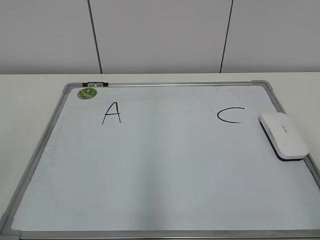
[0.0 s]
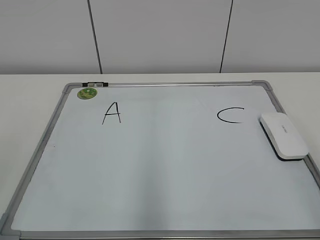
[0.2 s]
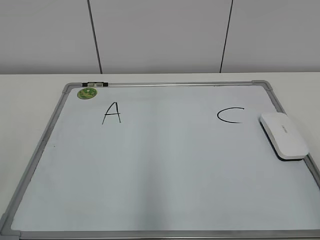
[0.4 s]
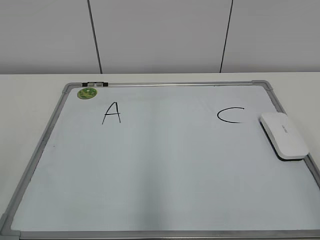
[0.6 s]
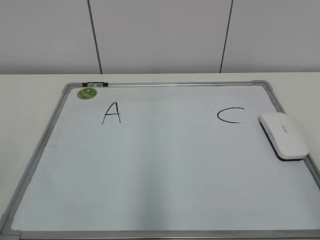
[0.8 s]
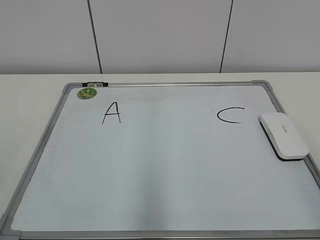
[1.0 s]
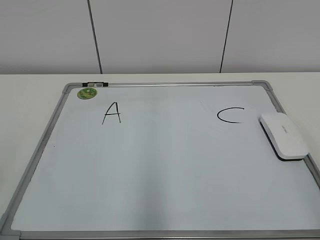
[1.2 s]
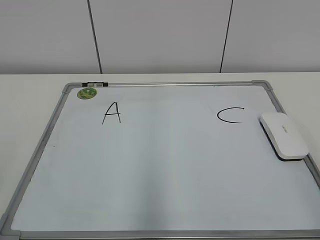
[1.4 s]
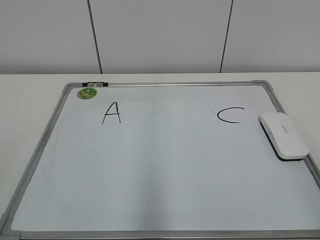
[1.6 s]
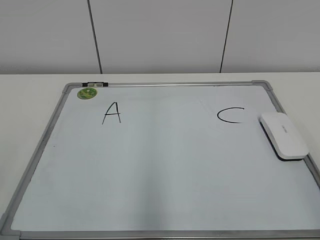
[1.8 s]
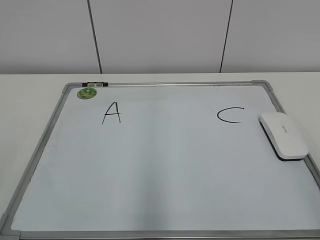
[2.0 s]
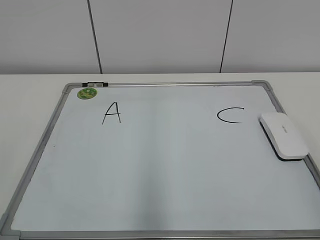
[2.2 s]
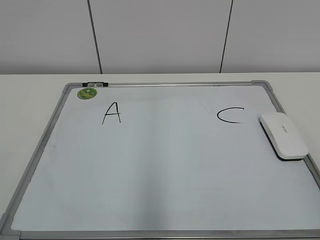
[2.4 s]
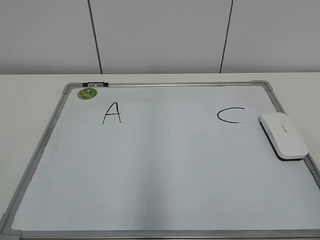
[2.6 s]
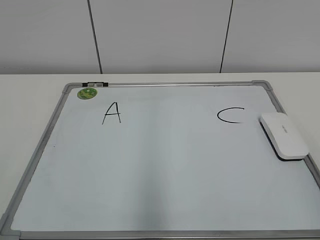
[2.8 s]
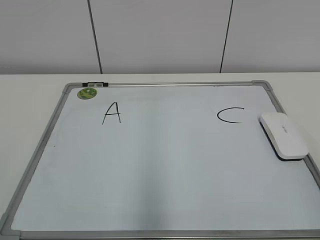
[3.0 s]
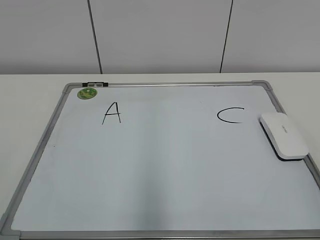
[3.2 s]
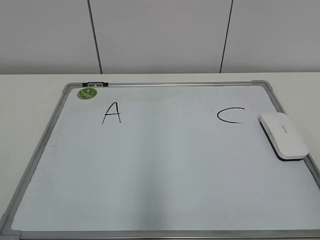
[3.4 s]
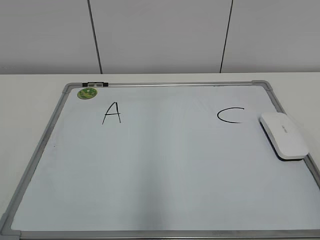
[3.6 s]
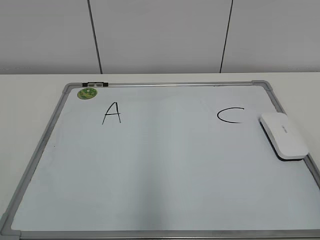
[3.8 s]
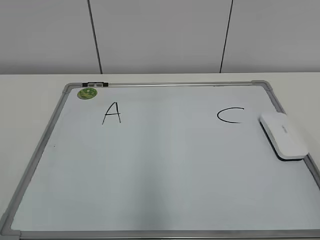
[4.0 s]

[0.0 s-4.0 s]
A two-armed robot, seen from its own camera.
Task of the whole recording: pick up the eraser on the blackboard and erase the letter "B".
2.6 to 4.0 s: Both grippers stay put.

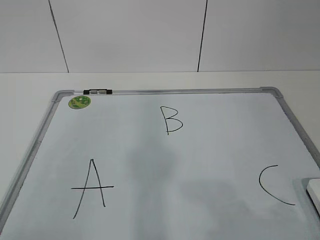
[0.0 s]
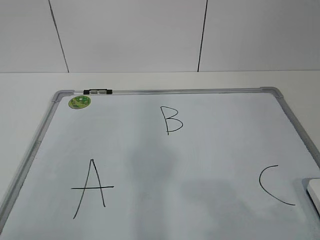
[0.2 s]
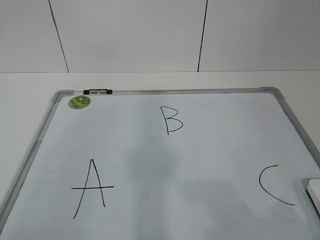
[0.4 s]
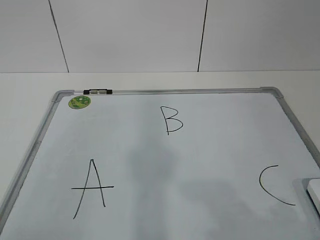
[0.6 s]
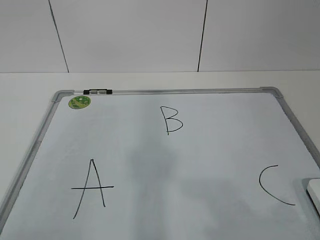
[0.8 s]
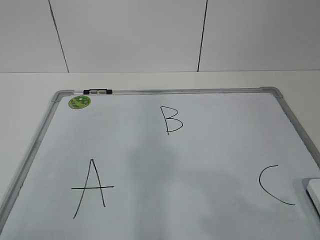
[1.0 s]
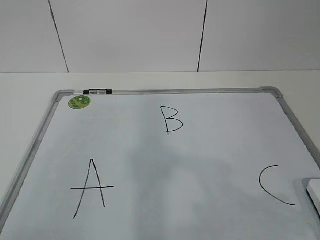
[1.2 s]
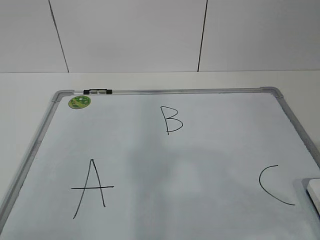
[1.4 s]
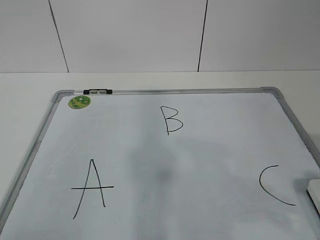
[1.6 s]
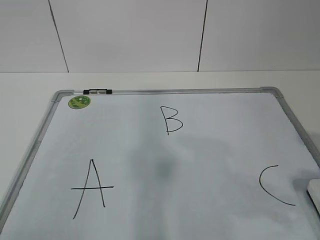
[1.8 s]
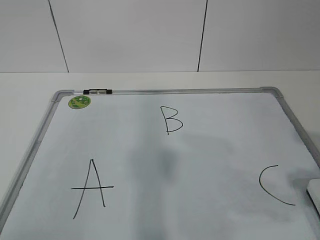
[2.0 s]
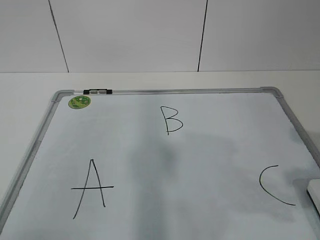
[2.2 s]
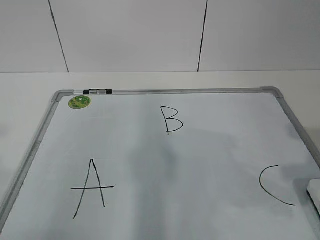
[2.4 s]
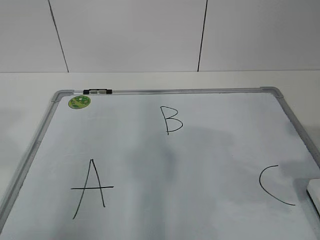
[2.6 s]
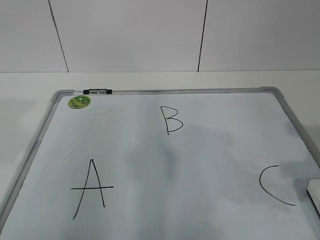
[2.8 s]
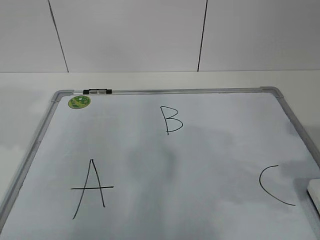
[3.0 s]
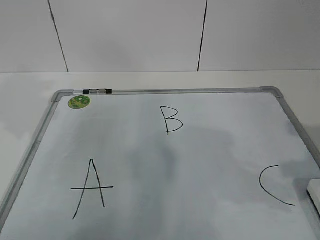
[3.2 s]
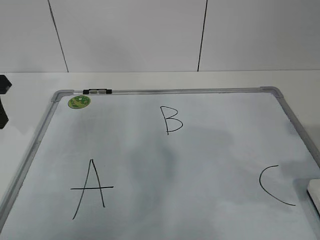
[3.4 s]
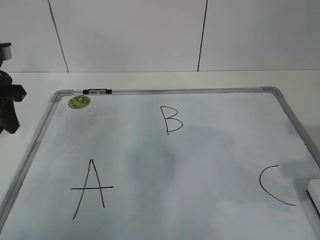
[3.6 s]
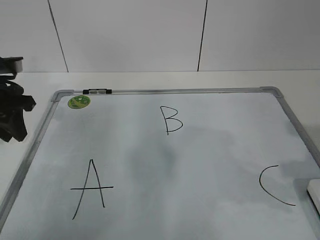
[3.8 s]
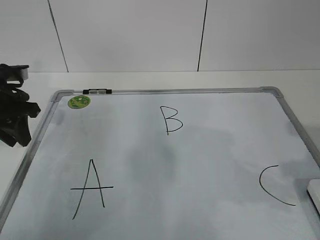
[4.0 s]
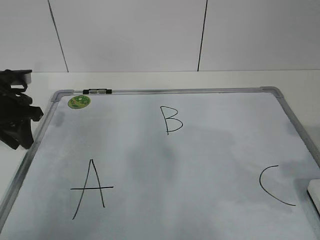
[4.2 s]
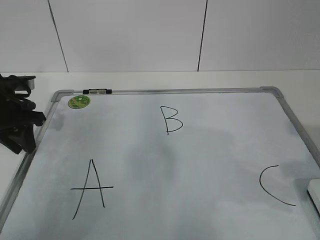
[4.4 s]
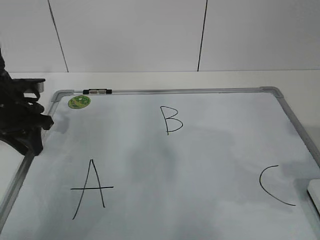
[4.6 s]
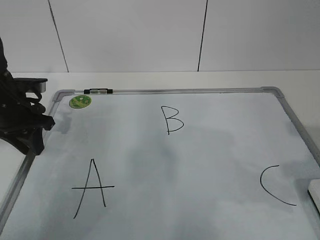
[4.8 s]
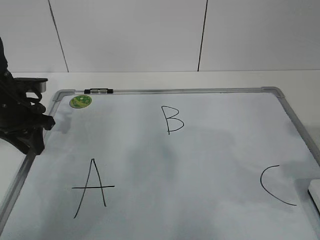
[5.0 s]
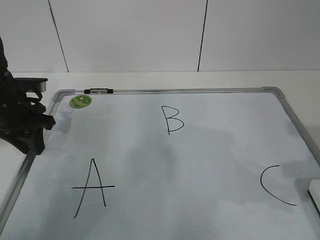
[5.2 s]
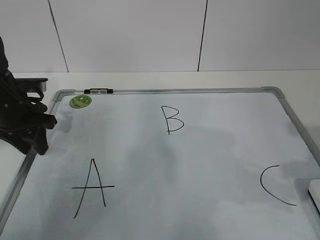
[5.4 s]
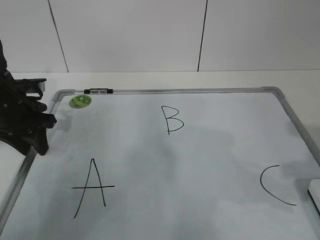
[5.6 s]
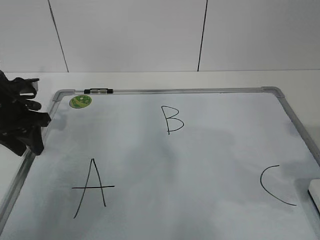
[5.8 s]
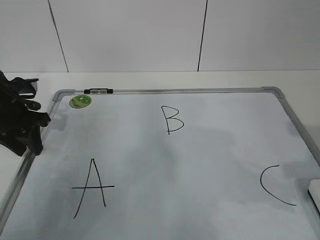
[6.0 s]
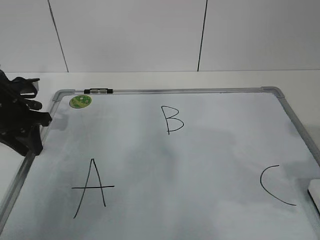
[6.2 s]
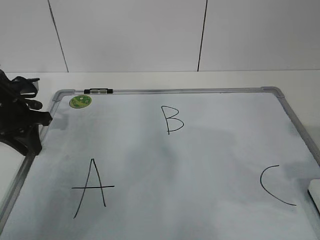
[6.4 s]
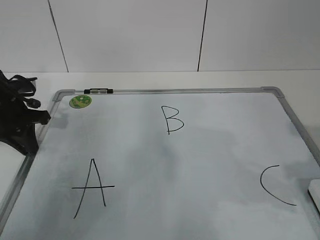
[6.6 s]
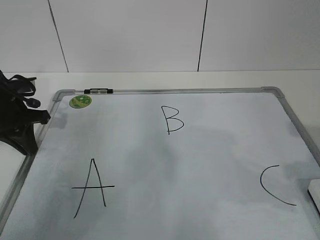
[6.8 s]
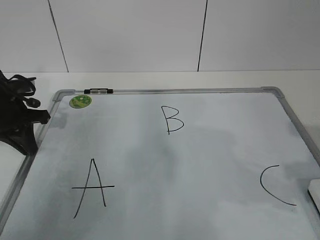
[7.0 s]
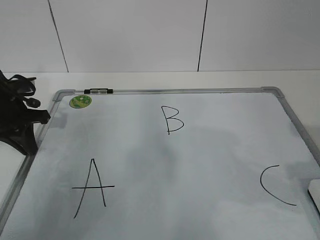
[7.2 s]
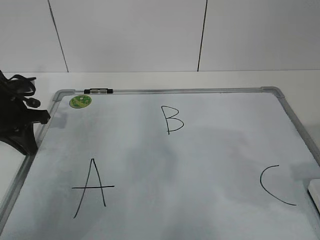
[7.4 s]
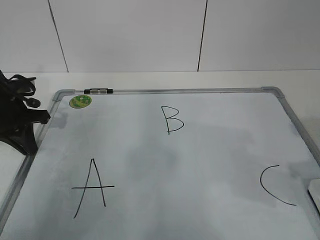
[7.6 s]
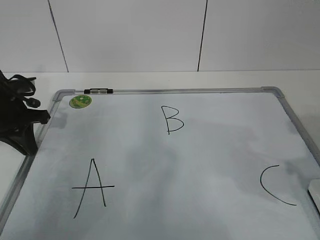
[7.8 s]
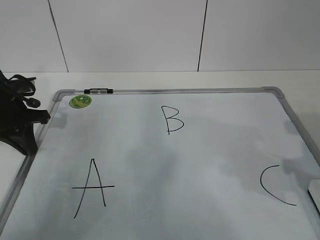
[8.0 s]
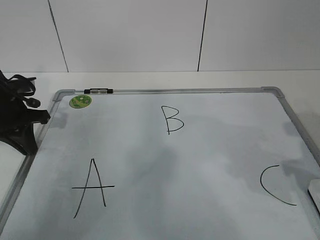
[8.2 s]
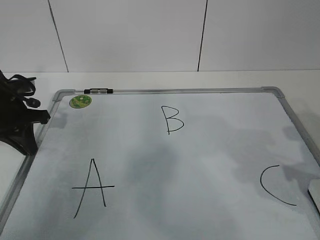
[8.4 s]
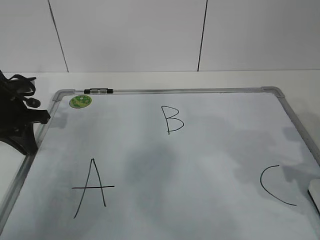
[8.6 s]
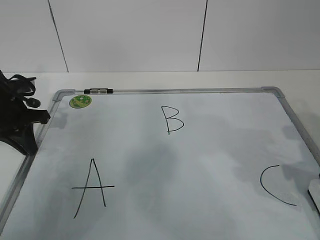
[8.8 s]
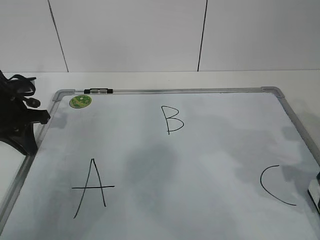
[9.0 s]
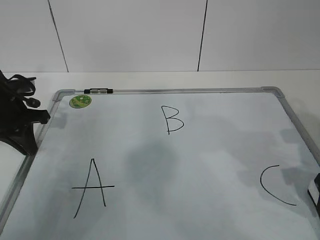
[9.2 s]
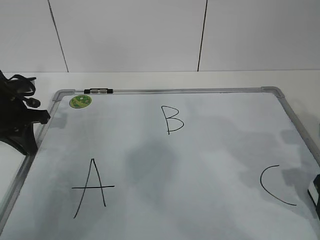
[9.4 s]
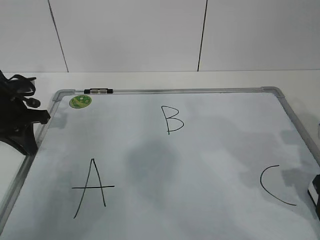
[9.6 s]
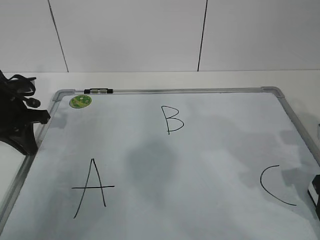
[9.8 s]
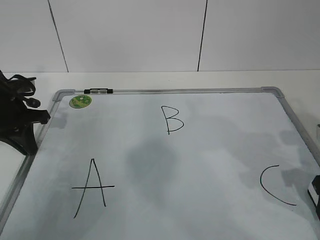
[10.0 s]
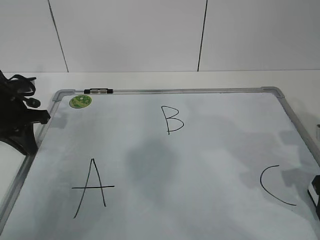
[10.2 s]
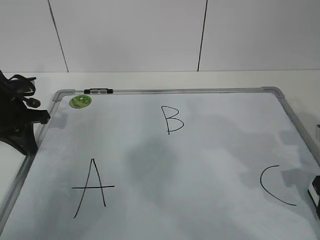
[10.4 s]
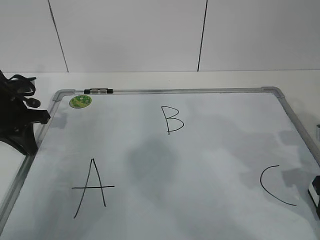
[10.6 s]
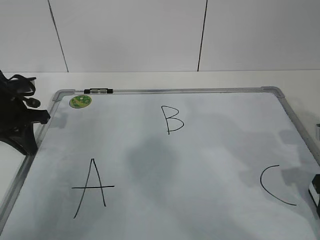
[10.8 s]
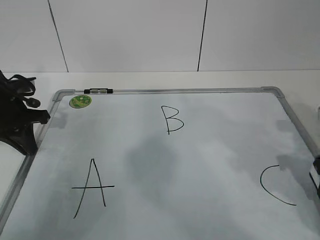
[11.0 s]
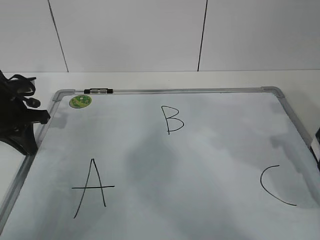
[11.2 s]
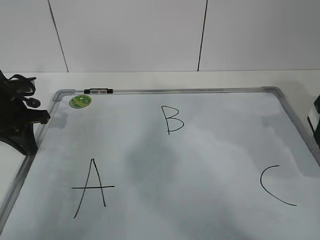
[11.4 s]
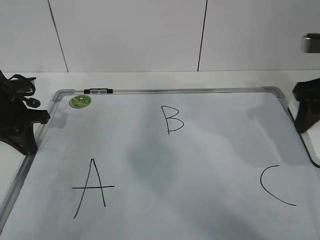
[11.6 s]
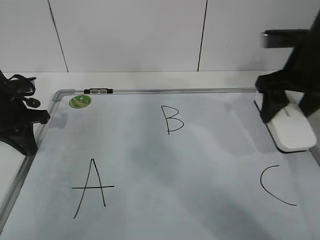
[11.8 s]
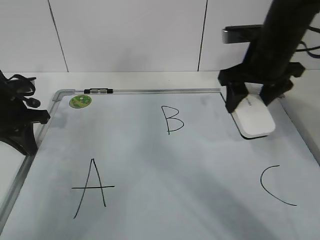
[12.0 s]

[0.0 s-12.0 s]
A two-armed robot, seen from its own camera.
Task of the whole recording: pick up the eraser on the blackboard and erase the letter "B".
Step, 0.0 to 3.8 s: Hold the drawing board steady with your left hand.
Step, 4.0 to 8.8 s: Grab the eraser with your right hand.
1.6 to 3.0 s: The right gripper is displaced forward by approximately 5 cm; the left gripper goes about 20 cm forward.
3.0 to 4.4 s: The left gripper travels forward and downward by some 20 cm.
4.4 to 6.0 s: The grippers stay close to where they were, moving slightly.
6.0 to 7.6 s: The left gripper closes its fingers.
10.4 to 12.0 s: The right gripper goes some 20 cm forward, to the left and upward.

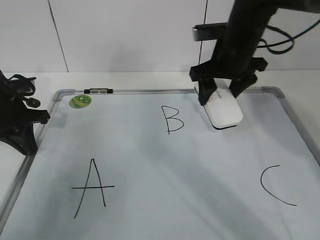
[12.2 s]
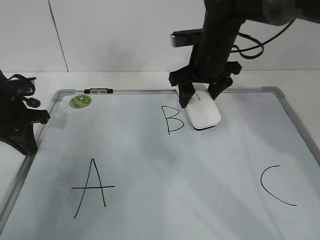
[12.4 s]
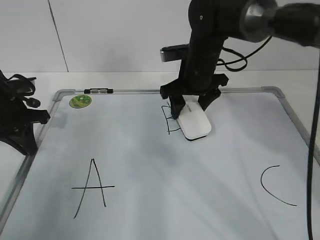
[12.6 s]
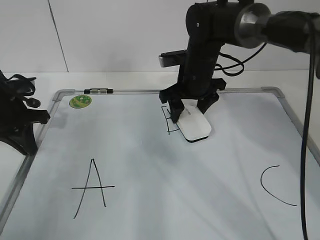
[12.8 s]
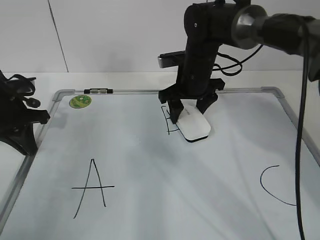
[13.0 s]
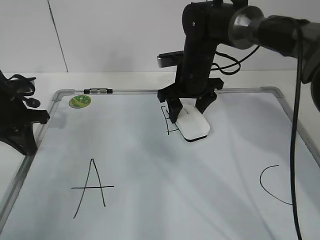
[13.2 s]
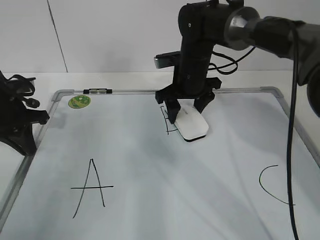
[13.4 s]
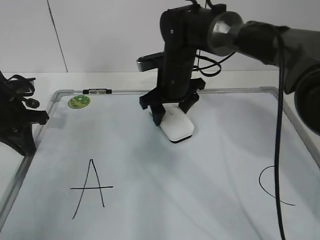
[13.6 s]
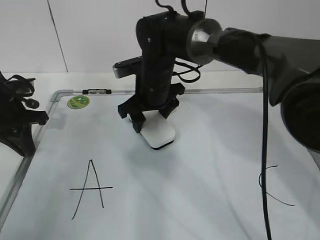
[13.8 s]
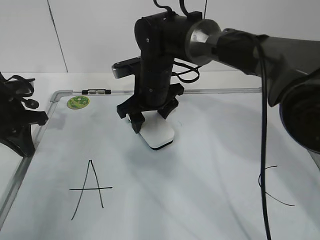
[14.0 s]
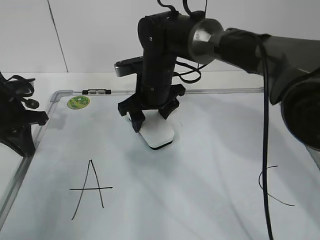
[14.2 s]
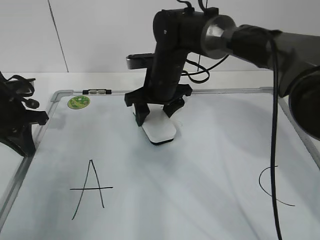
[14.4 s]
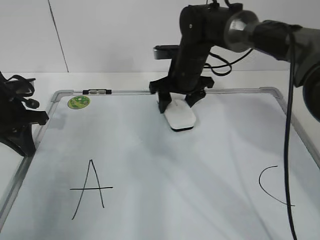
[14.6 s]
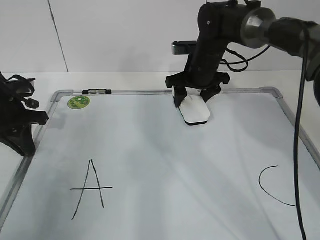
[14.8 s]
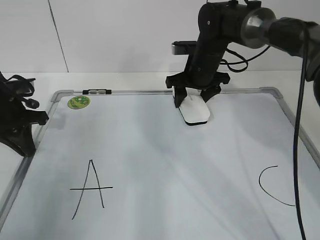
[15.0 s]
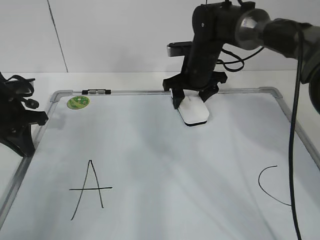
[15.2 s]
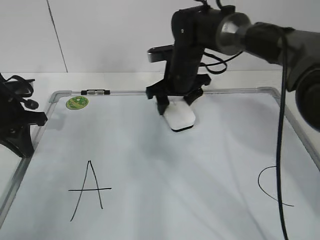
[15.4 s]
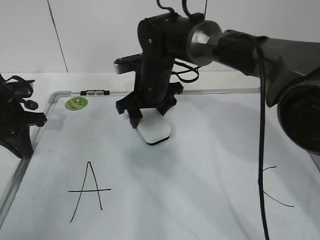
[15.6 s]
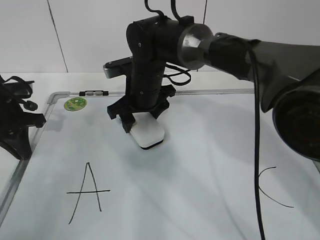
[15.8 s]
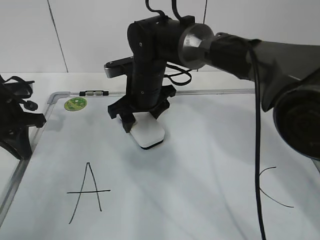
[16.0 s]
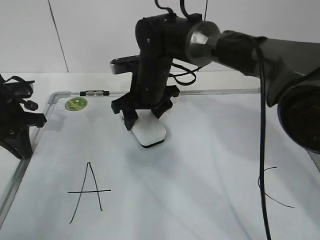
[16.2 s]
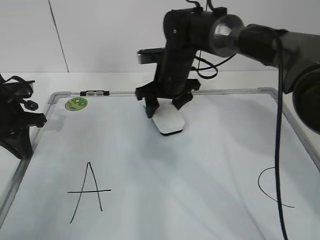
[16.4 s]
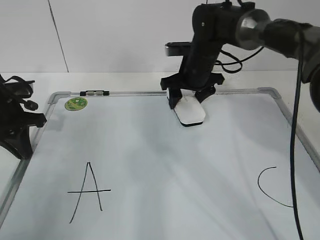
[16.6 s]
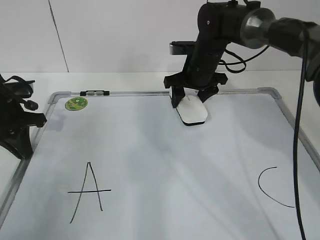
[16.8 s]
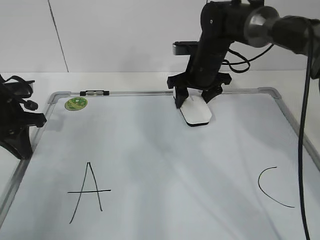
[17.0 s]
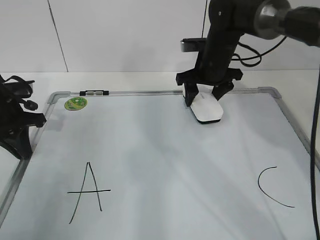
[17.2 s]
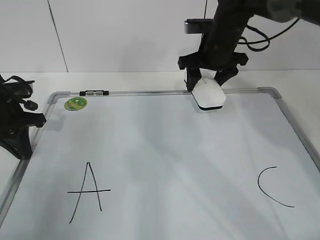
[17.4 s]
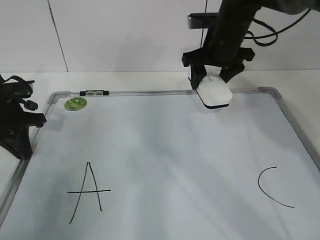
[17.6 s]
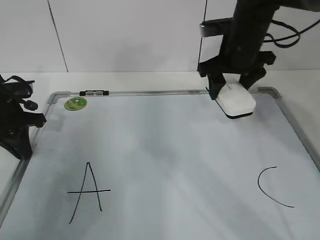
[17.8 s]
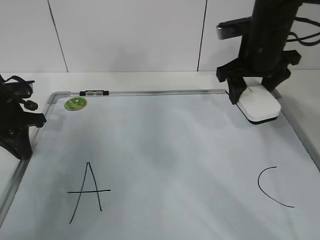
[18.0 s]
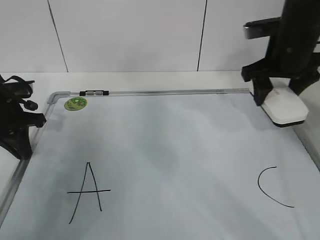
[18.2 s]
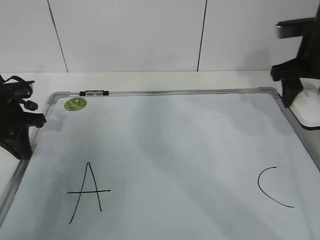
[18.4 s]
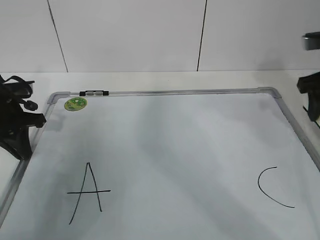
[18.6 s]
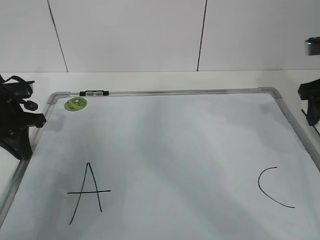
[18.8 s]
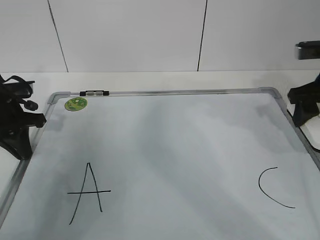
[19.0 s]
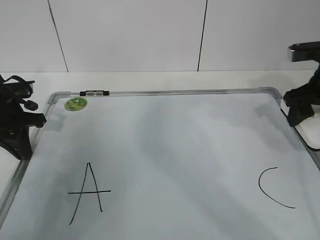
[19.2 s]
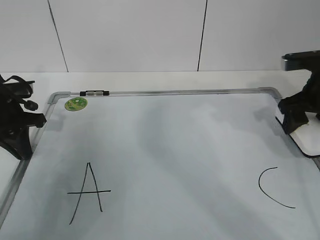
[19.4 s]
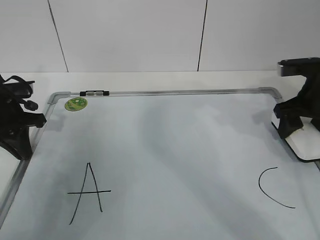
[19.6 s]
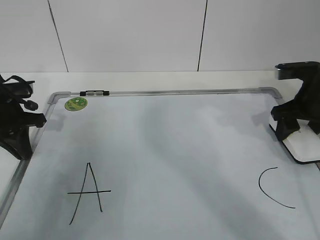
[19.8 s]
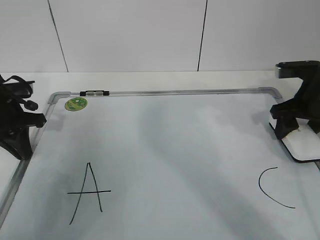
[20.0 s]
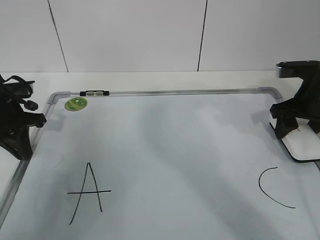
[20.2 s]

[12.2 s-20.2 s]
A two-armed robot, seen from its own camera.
Task of the whole recording: pick up the eraser on the blackboard and erase the letter "B".
Step, 14.2 to 18.8 s: Put down the eraser with your right hand.
12.2 to 13.8 s: The right gripper is displaced to the left and downward by approximately 15 cm.
13.8 to 15.4 s: The right gripper goes approximately 5 cm to the right.
15.4 to 17.0 s: The right gripper shifts about 5 cm to the right.
17.0 to 18.6 s: The right gripper travels to the right, backward and upward by about 25 cm.
18.6 to 20.2 s: The right gripper shifts roughly 5 cm downward.
